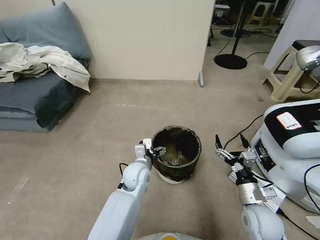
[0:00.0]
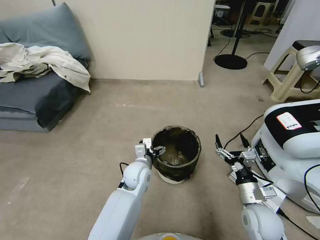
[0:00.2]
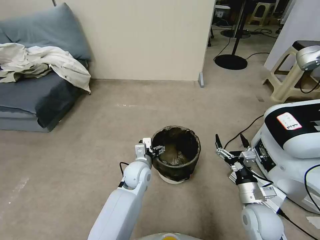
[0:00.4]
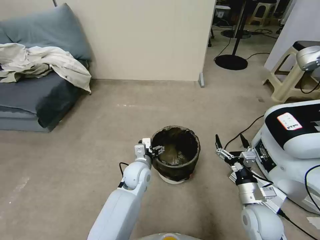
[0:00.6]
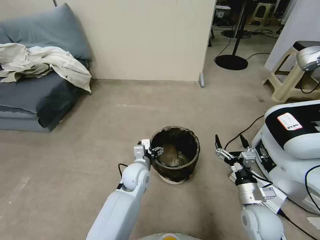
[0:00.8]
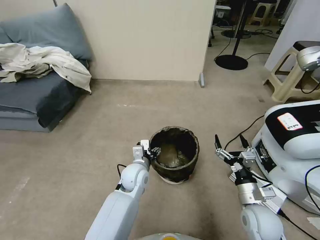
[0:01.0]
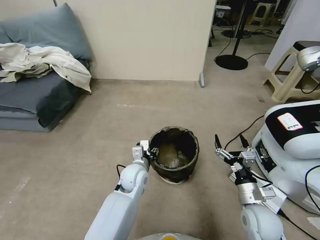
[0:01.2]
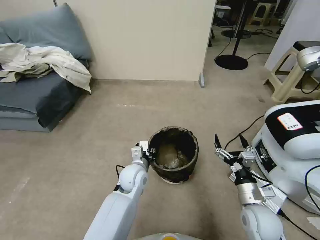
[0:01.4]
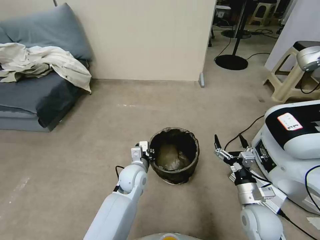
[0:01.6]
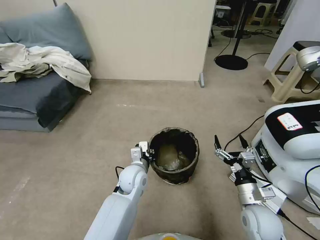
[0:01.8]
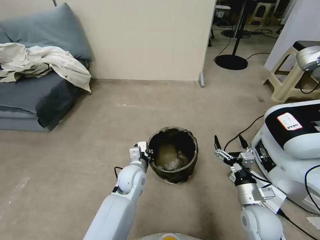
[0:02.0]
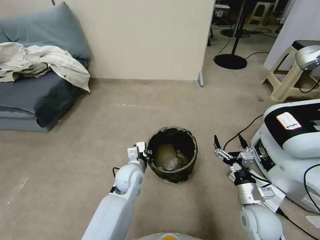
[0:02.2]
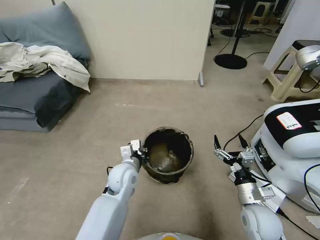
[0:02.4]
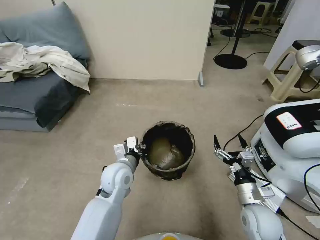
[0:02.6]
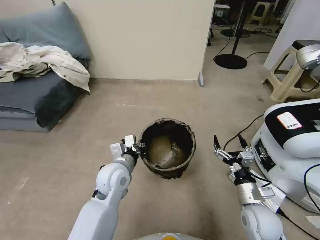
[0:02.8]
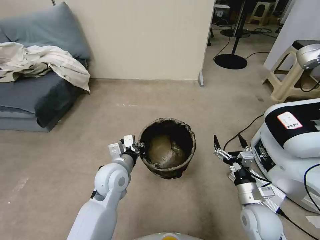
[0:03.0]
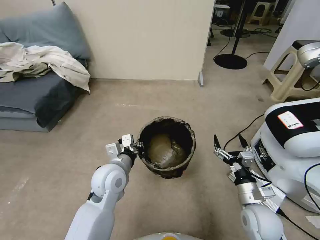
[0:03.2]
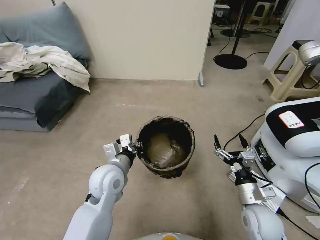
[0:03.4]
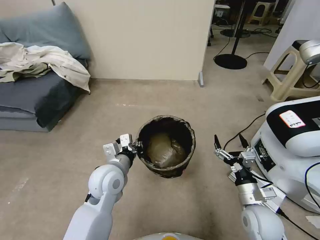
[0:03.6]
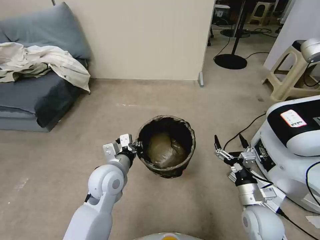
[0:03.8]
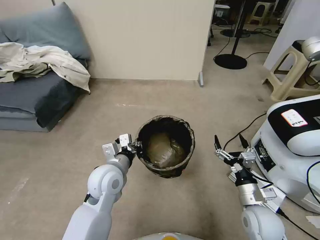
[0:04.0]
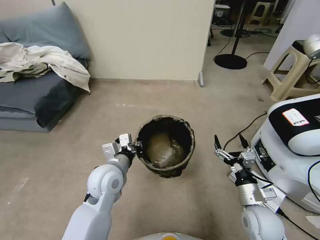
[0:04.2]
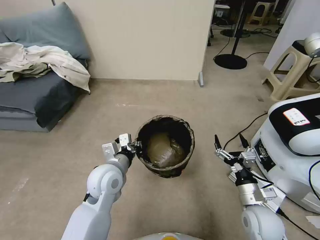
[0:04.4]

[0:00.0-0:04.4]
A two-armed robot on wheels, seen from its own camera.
Task of the whole recording: Pick up the trash can from the floor.
0:00.0 to 0:01.4: The left gripper closes.
0:01.4 to 0:03.0: The left gripper moves upward and to the left, some 10 cm.
0:03.0 to 0:04.4: The grippers move only a little.

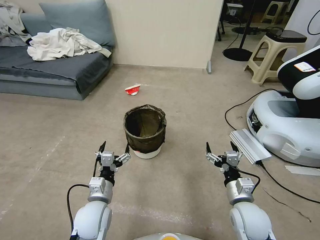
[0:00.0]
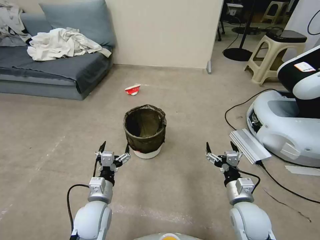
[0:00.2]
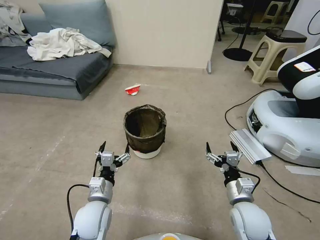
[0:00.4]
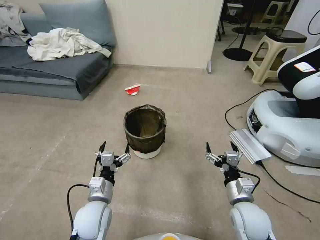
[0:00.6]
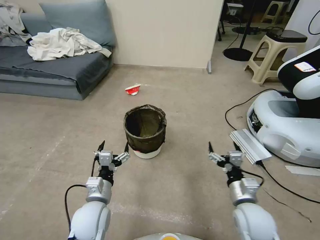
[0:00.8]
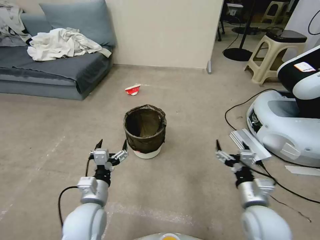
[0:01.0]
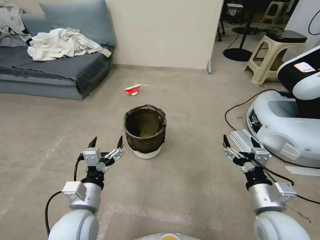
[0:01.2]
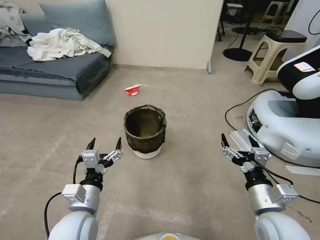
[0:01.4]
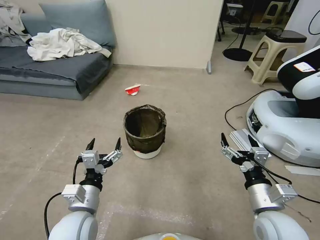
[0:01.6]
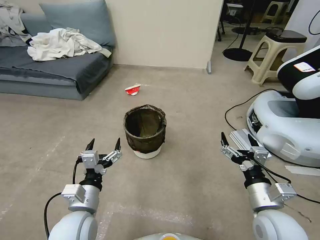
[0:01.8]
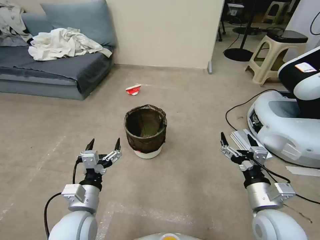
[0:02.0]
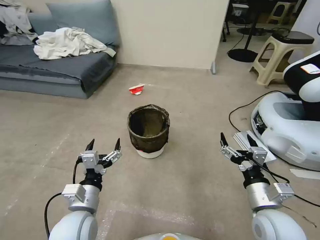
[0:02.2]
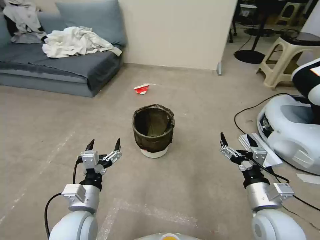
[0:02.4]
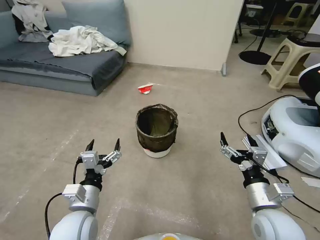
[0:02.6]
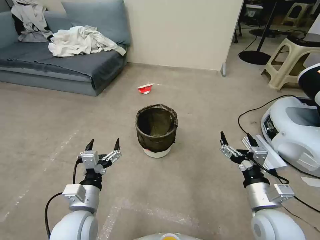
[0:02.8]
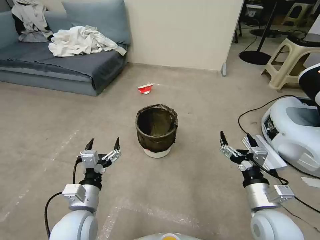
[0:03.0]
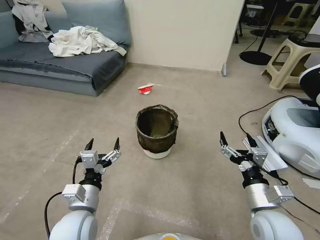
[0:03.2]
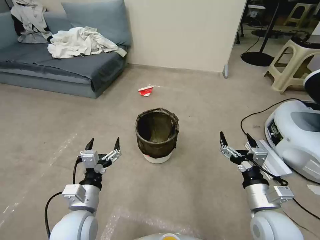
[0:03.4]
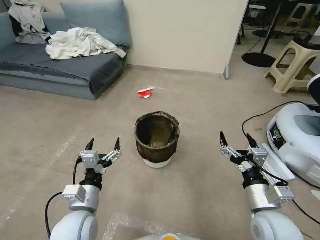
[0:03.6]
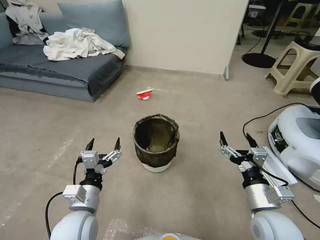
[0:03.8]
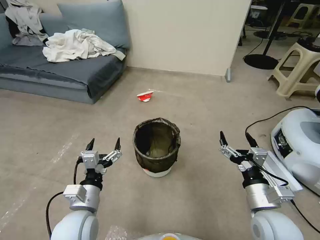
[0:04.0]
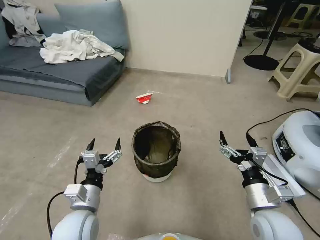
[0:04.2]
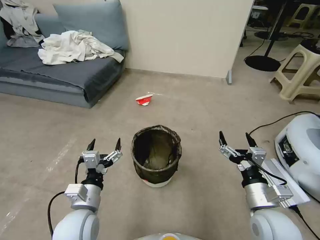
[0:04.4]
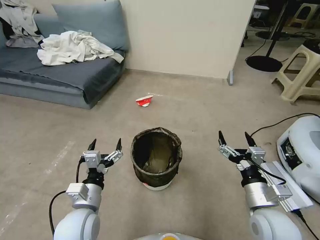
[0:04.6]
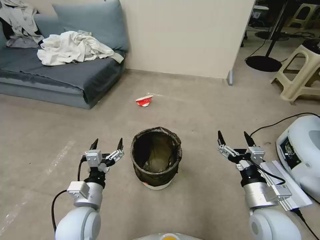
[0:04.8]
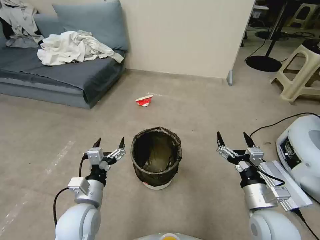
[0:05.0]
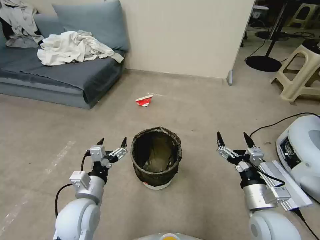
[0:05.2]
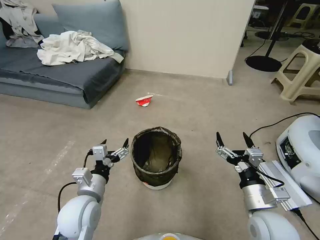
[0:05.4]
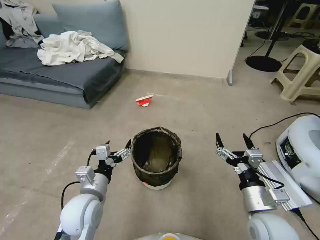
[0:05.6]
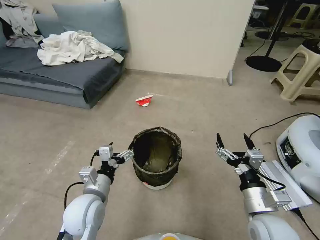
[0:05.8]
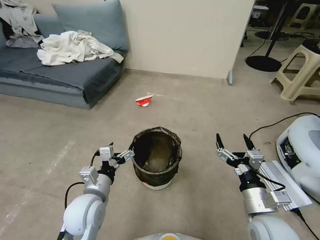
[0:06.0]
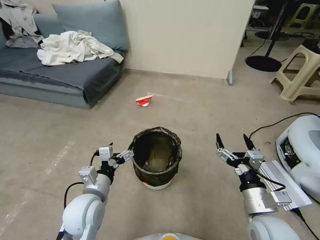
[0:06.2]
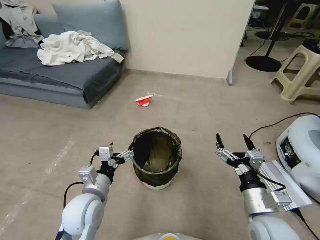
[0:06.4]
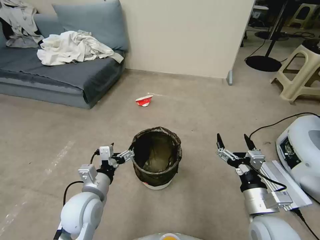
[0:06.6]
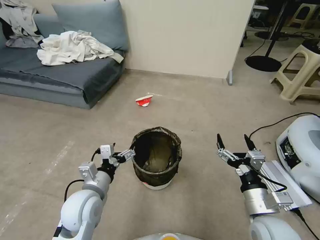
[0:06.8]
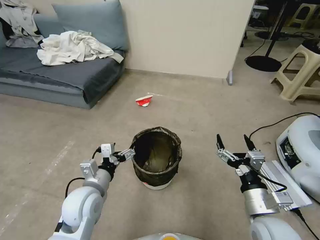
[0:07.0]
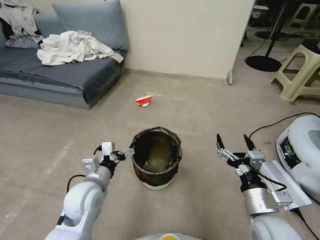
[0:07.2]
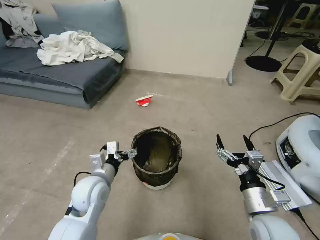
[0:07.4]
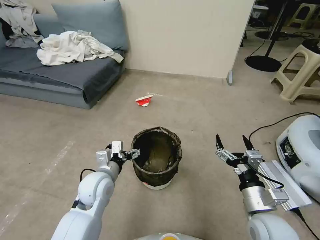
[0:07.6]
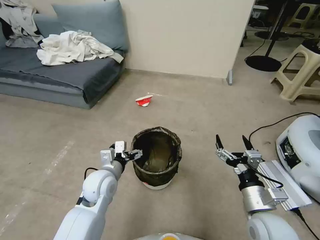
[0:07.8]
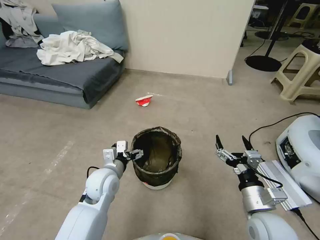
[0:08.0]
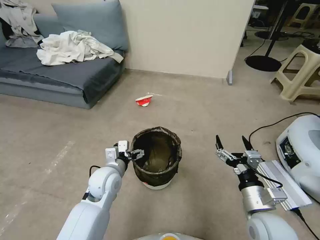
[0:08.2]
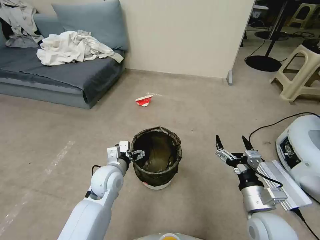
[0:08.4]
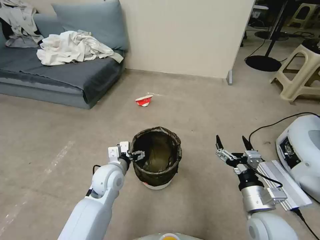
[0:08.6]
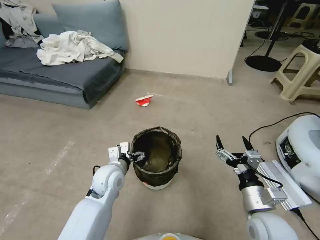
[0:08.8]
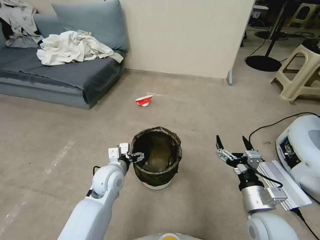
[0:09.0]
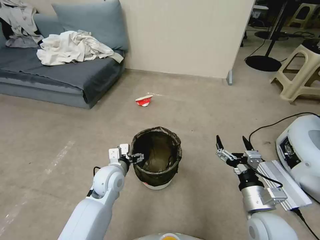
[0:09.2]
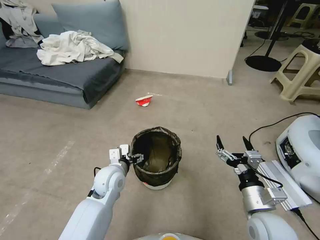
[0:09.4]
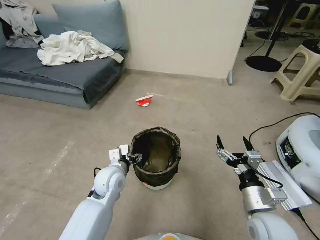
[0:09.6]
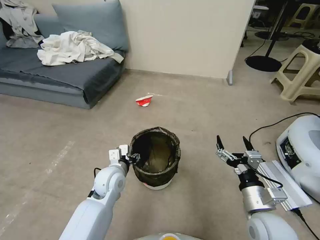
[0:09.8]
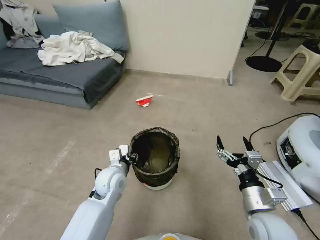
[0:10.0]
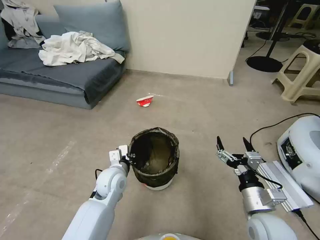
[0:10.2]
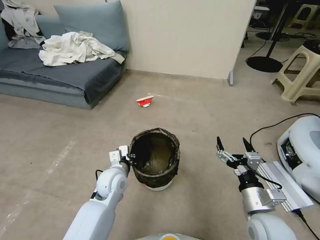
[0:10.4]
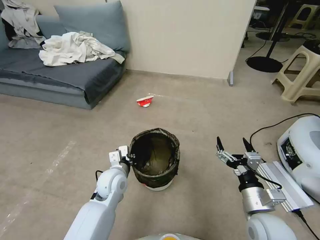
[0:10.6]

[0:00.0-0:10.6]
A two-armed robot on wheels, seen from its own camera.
Task of the whole recording: Pick up the trash can from the floor.
0:04.6 to 0:06.0: The grippers stay close to where they were, moving slightly.
0:06.0 to 0:07.6: The left gripper heads forward, covering approximately 5 cm.
0:07.6 to 0:09.0: There are only small adjustments of the grippers.
0:09.0 to 0:10.6: The left gripper closes.

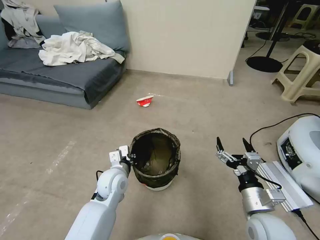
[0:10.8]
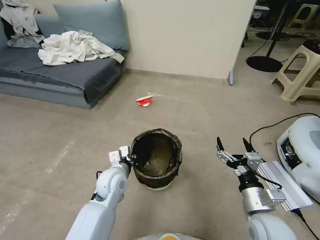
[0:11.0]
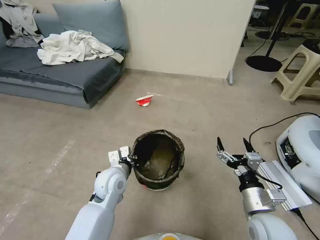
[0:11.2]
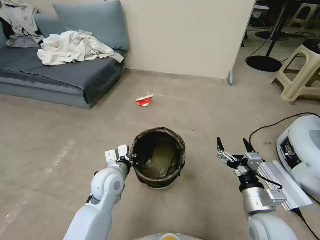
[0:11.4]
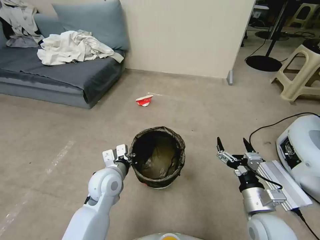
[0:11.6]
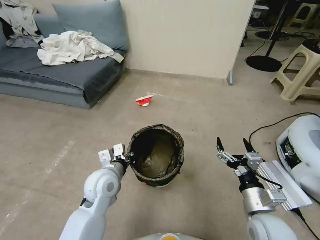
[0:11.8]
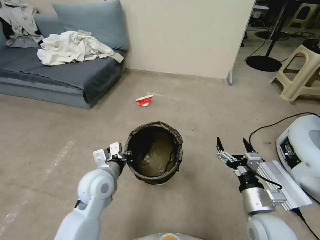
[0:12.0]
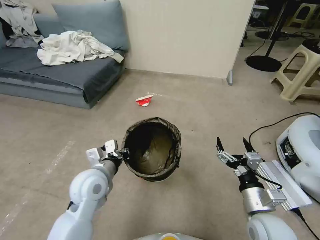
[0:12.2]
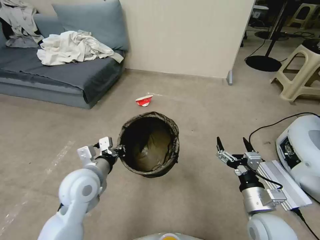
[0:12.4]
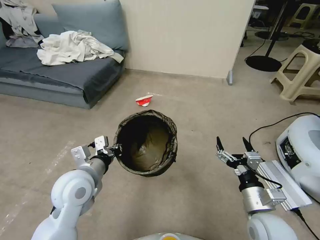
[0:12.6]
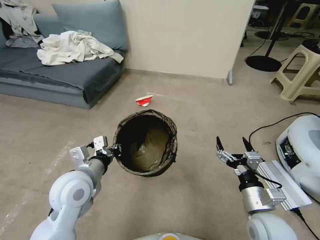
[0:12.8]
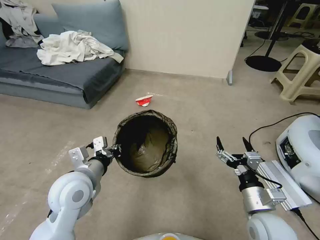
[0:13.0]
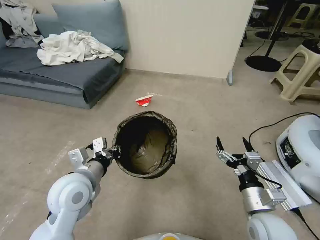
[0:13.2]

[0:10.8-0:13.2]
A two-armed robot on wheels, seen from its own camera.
Task of the whole recording: Pick up the trash can from the floor.
0:10.8 to 0:12.0: The left gripper heads upward, covering about 5 cm.
0:12.0 to 0:13.2: The left gripper goes roughly 5 cm upward.
